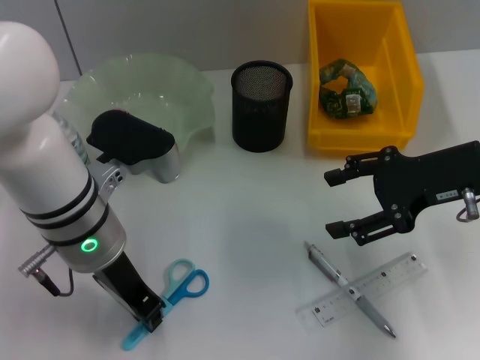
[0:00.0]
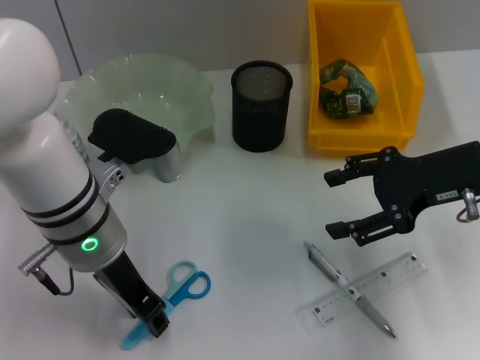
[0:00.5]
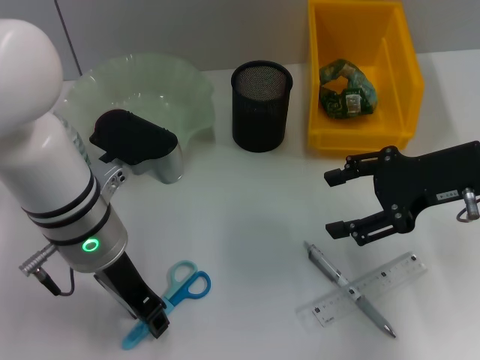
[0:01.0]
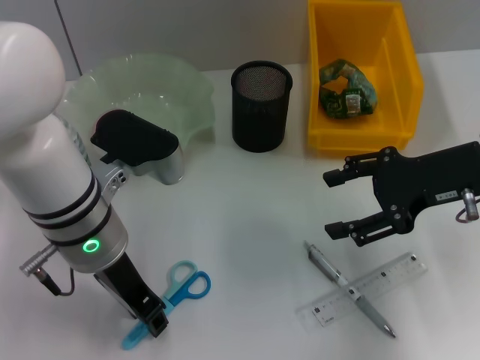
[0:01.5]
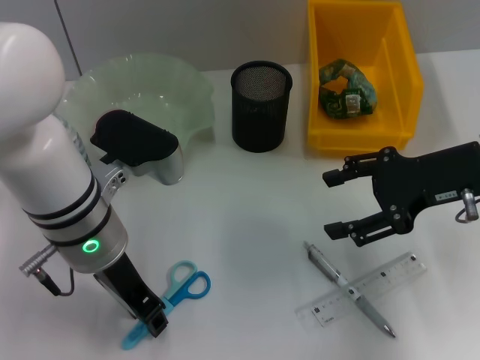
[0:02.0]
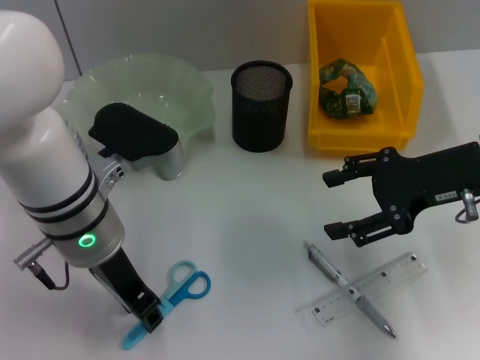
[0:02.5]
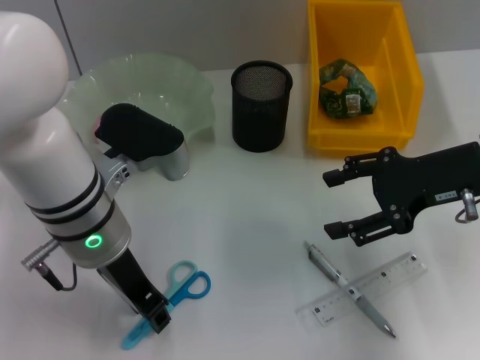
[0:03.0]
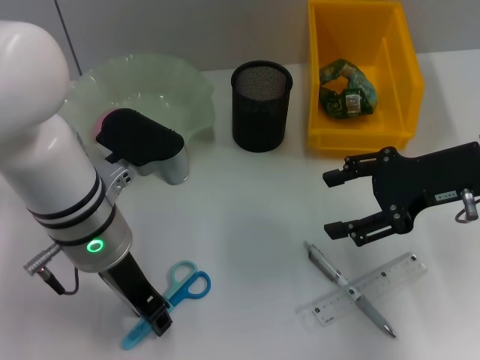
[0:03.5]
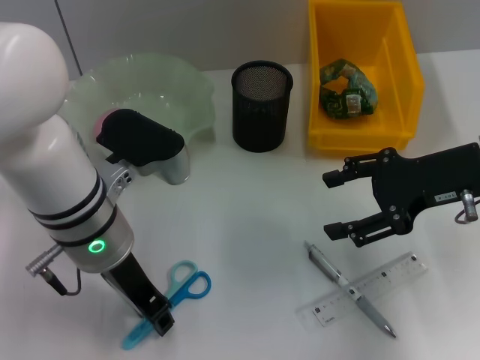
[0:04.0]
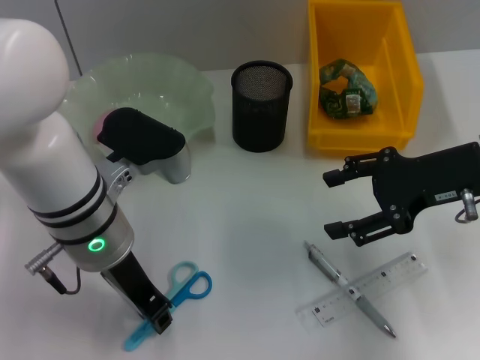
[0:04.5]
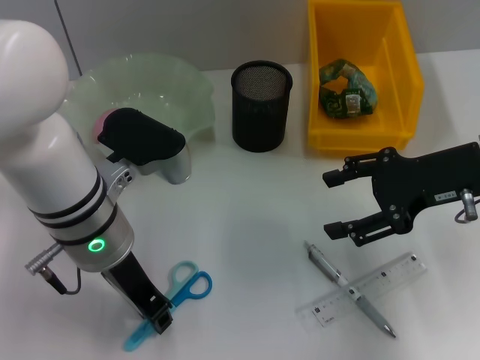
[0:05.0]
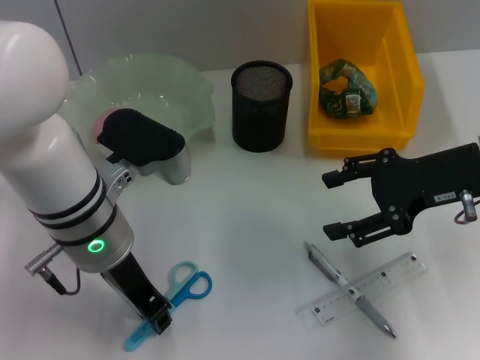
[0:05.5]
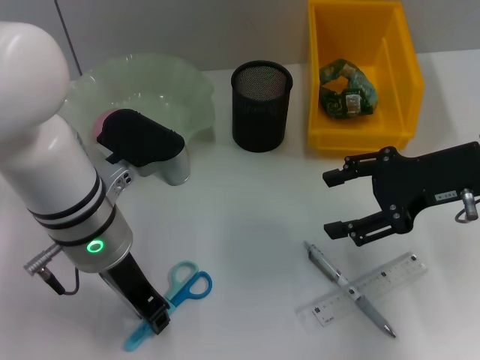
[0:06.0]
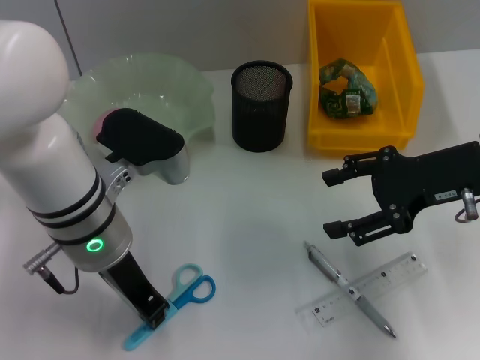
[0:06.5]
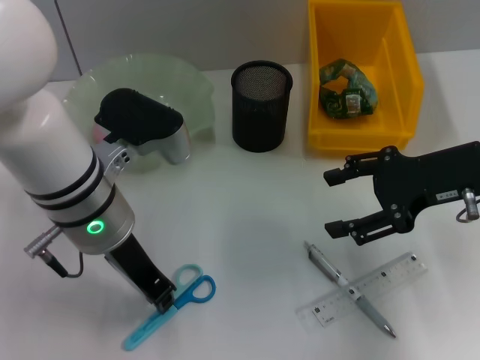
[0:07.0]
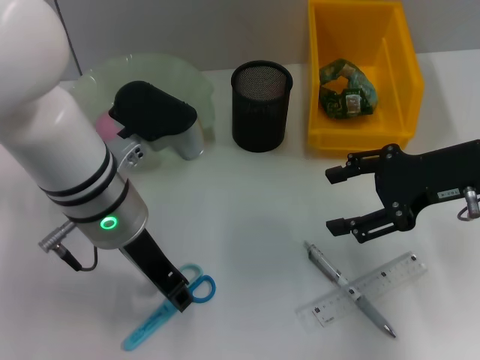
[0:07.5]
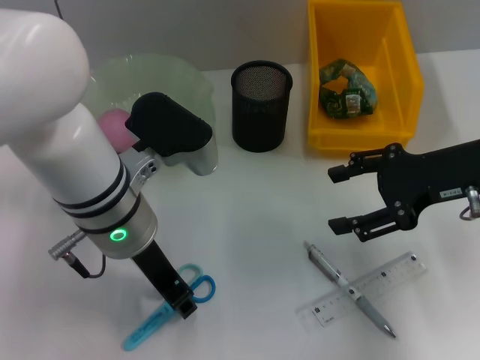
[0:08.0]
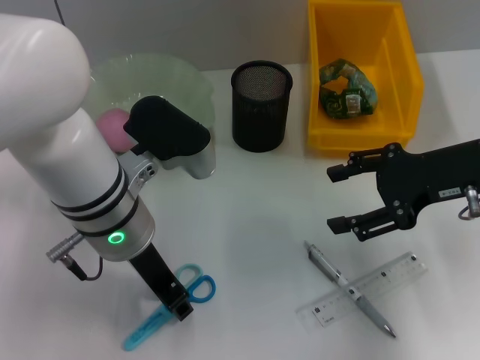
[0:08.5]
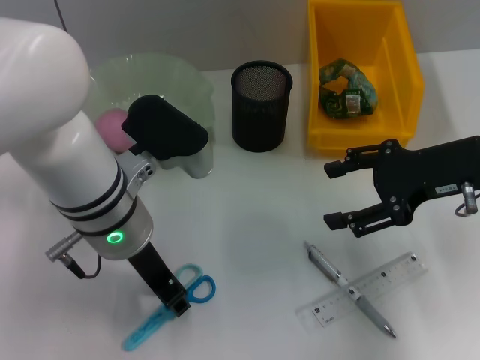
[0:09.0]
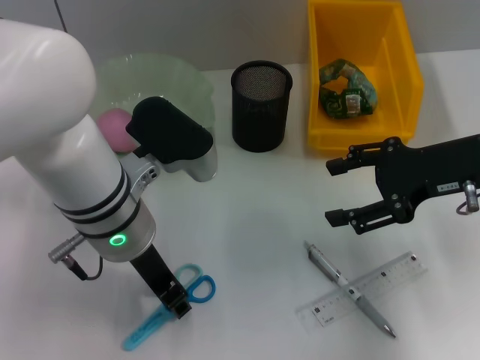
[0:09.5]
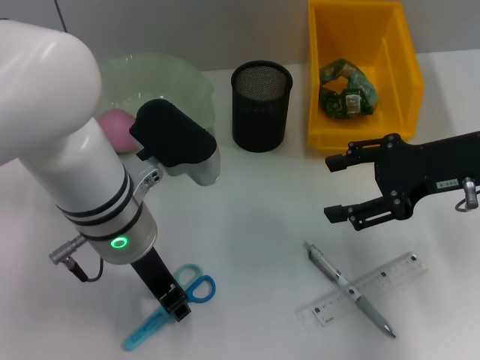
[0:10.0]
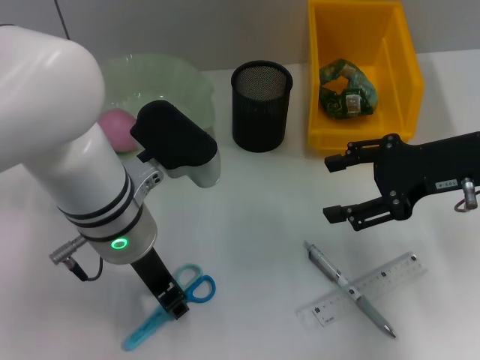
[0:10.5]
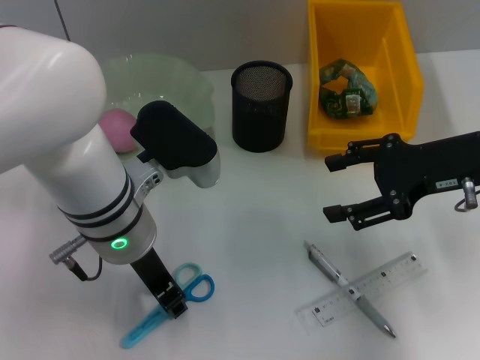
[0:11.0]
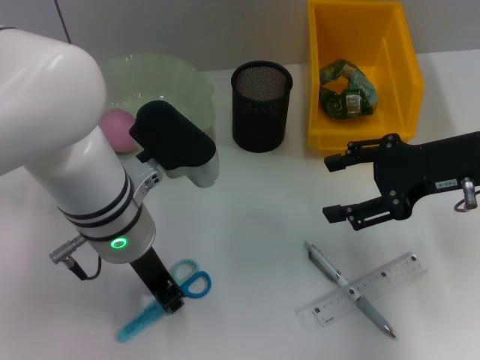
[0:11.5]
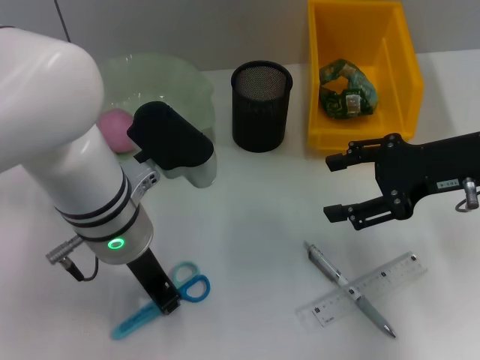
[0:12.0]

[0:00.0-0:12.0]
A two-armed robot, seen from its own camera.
Step, 0:00.0 to 0:11.5: Grab the blue scissors with the left hand.
0:00.0 to 0:06.0: Both grippers stay put.
0:06.0 to 0:08.0: The grippers make only small movements.
0:08.0 to 0:10.0: Neither gripper changes place.
0:10.0 to 0:12.0: Neither gripper changes place.

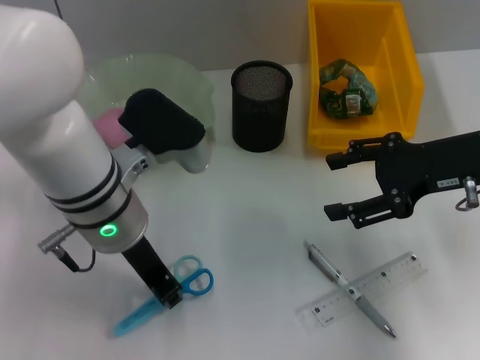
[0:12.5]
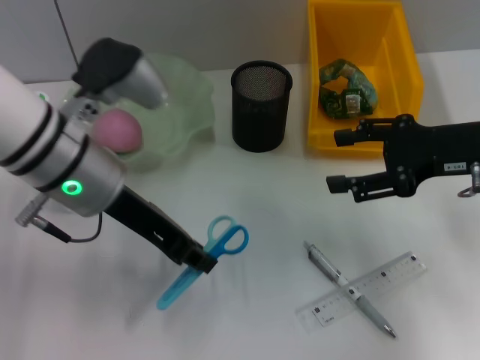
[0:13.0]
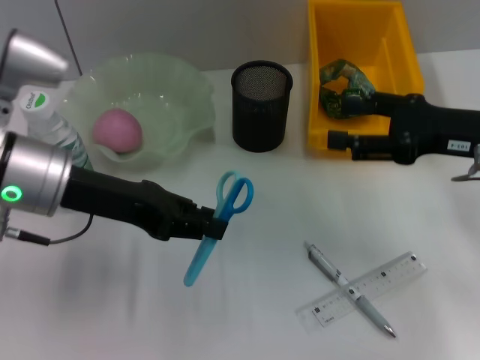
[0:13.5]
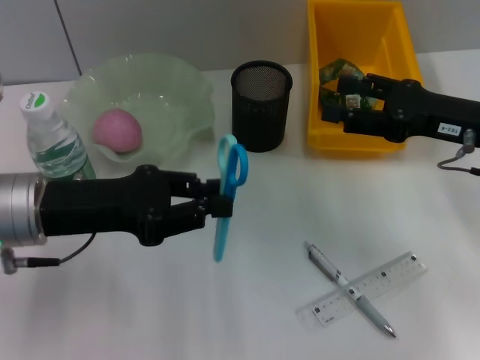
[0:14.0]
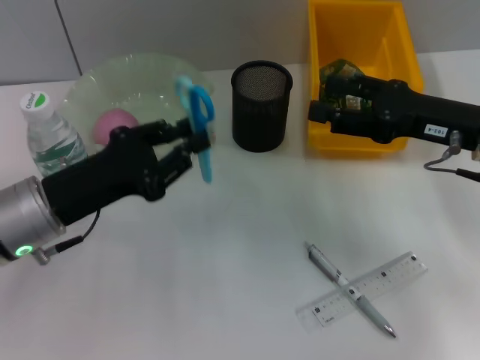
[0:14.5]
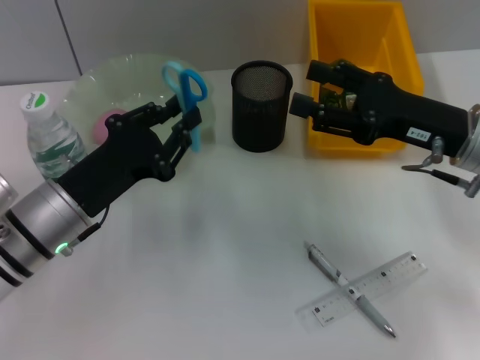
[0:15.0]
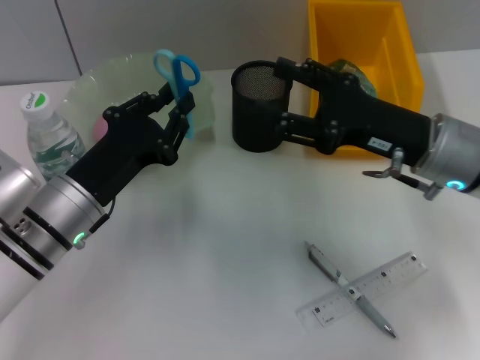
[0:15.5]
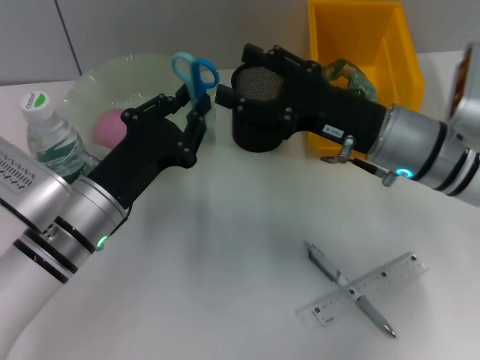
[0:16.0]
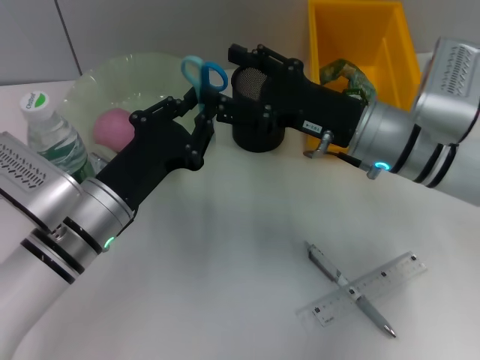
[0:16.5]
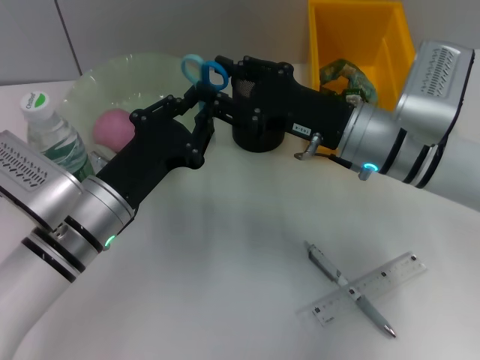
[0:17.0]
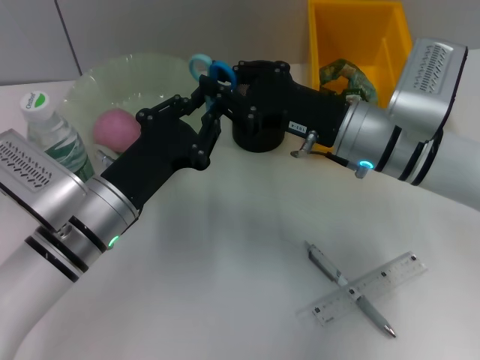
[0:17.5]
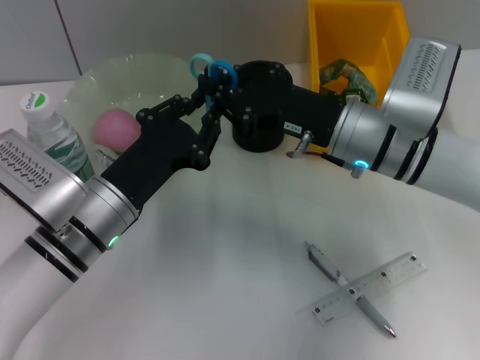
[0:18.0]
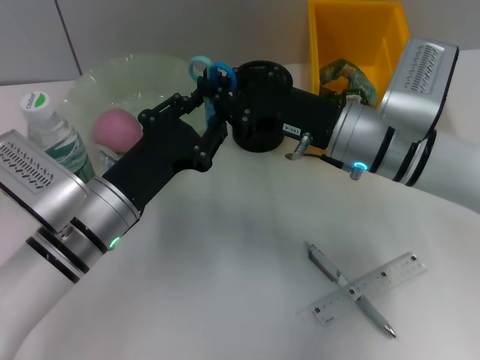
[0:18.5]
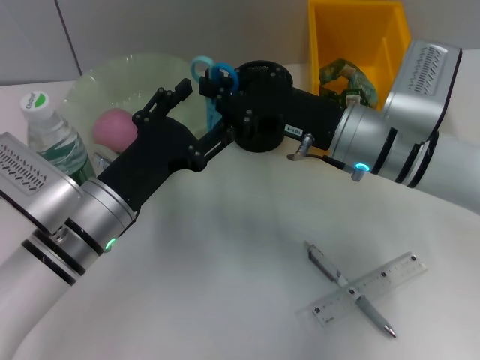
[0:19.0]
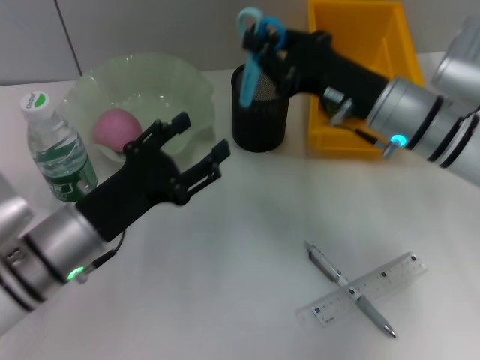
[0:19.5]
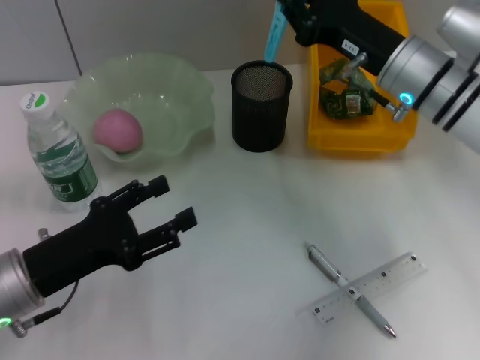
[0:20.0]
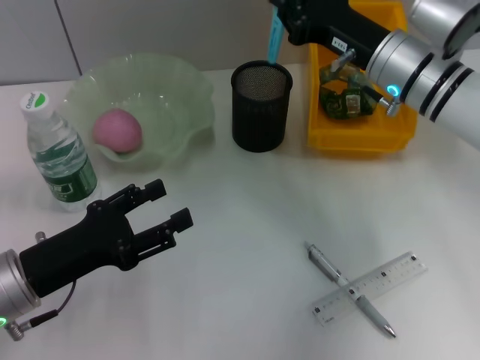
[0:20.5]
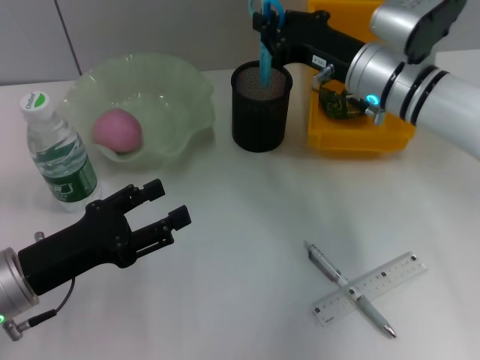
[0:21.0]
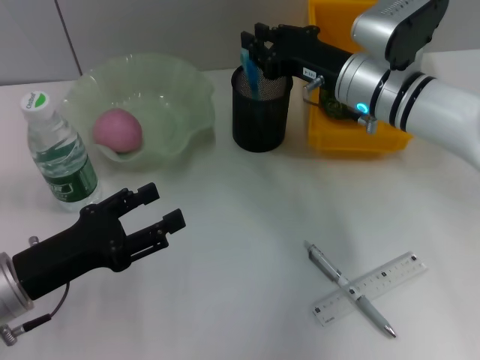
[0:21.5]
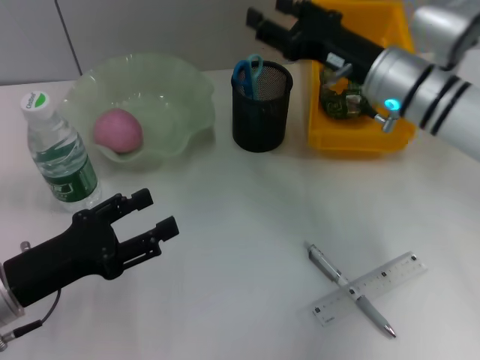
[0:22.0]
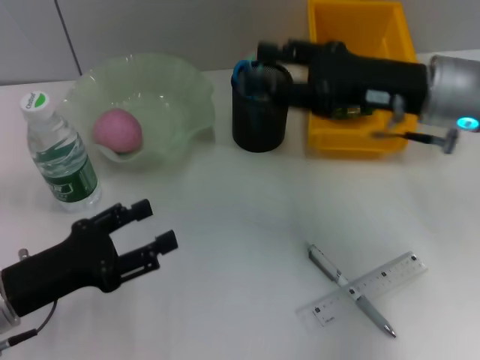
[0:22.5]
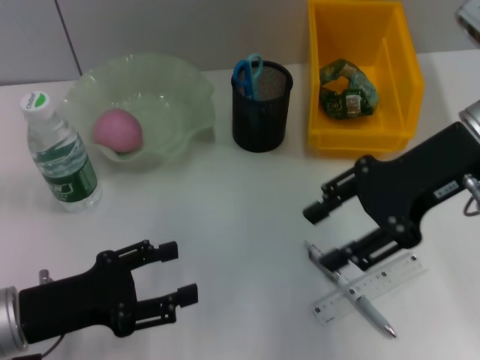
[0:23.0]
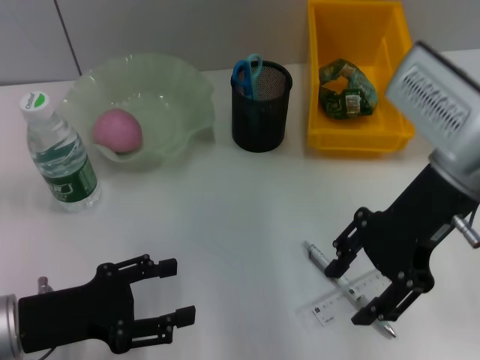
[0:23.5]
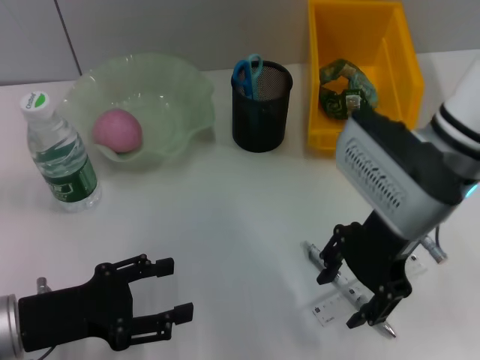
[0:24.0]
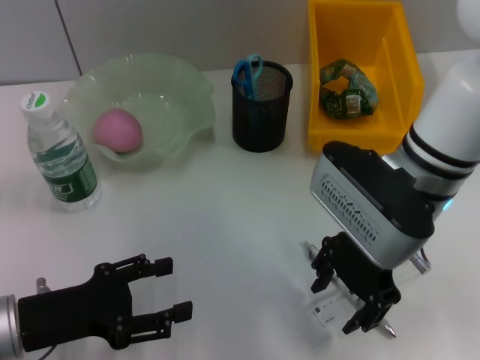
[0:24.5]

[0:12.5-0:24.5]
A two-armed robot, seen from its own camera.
Step, 0:12.5 to 0:18.5: Pass the blue scissors from the left hand to the right hand.
Step, 0:19.0 to 0:21.5: Place the blue scissors into the pen holder with the right hand.
0:12.5 to 0:14.5: The left gripper is displaced to the left by about 10 cm.
0:14.5 to 0:16.5: The left gripper travels to the right by roughly 5 cm; the right gripper heads to the left, covering about 10 cm.
0:16.5 to 0:18.5: The right gripper closes its fingers.
0:18.5 to 0:20.5: The left gripper travels to the left by approximately 10 cm, and opens its fingers. The right gripper is displaced forward by some 5 cm.
0:20.5 to 0:22.5: The right gripper is displaced backward by roughly 5 cm, and opens its fingers.
0:22.5 to 0:24.5: The right gripper shifts about 10 cm to the left.

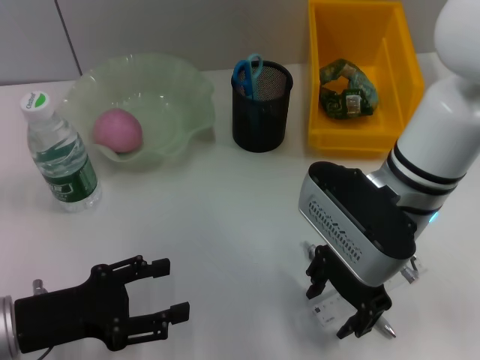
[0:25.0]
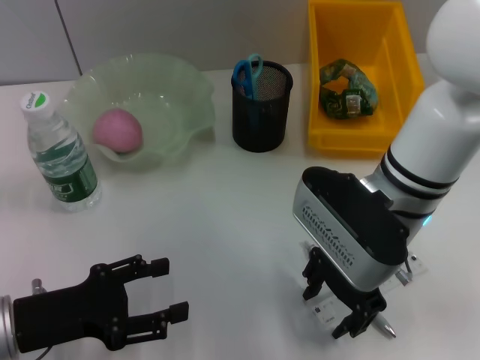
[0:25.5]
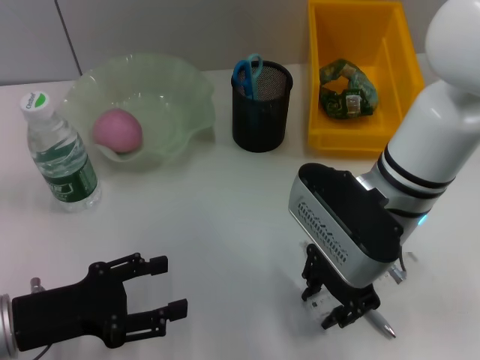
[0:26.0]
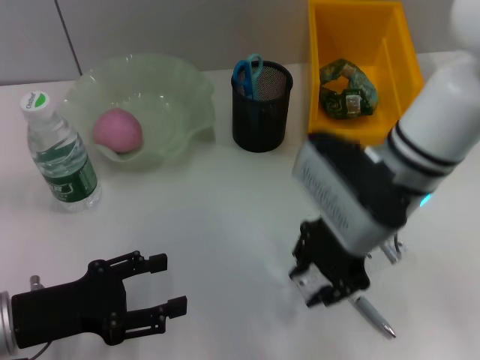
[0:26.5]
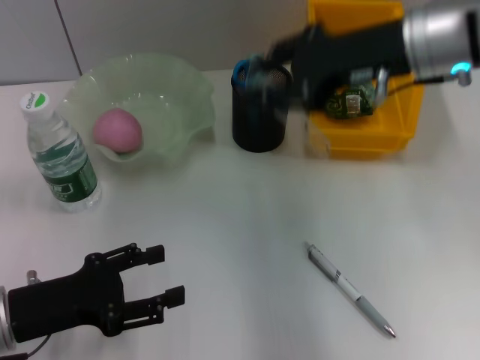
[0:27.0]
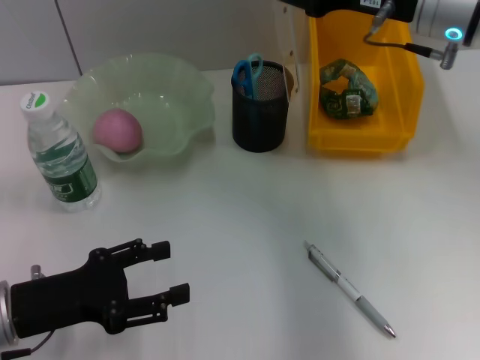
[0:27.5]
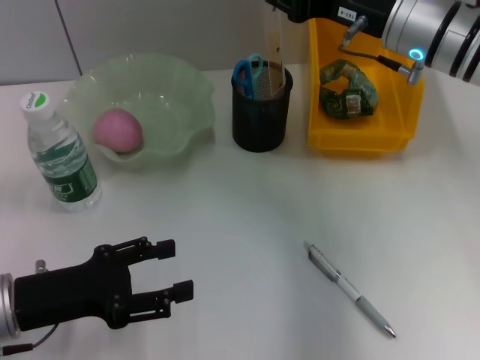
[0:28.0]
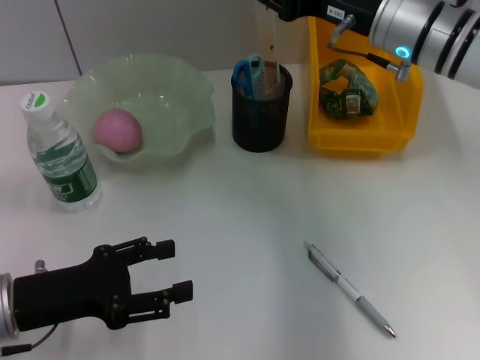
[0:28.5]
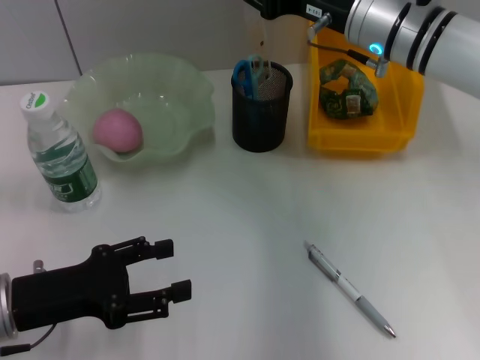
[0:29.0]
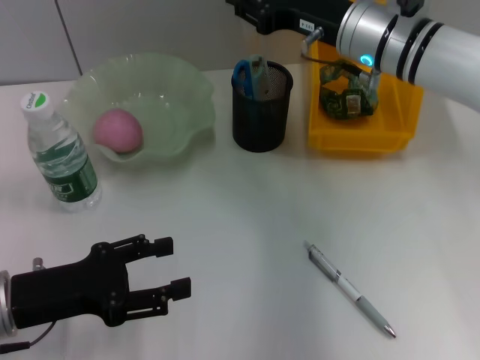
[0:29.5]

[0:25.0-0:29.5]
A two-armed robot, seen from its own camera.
0:25.0 to 0:27.0: The right gripper is displaced upward, forward and to the right by some 10 cm, and closes.
0:27.0 to 0:29.5: The right gripper goes about 10 cm downward and forward.
